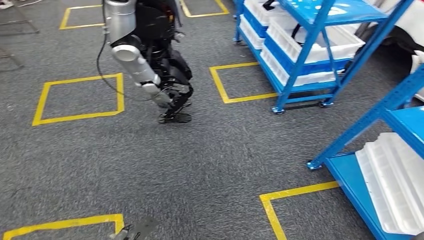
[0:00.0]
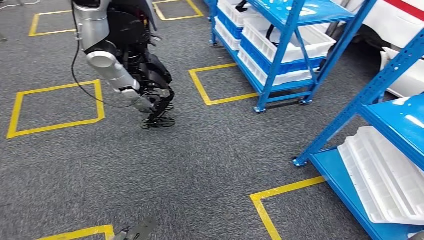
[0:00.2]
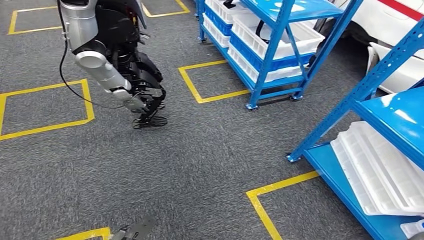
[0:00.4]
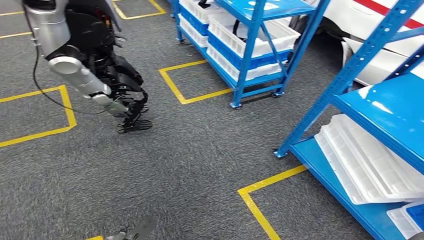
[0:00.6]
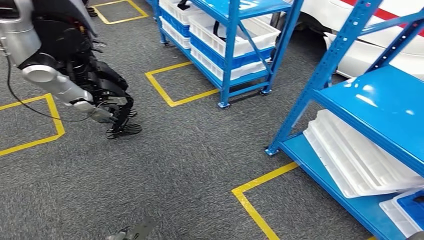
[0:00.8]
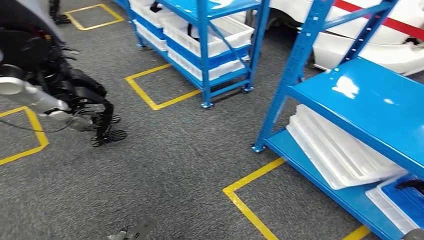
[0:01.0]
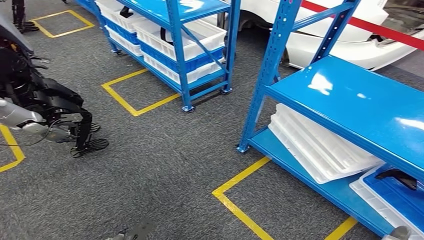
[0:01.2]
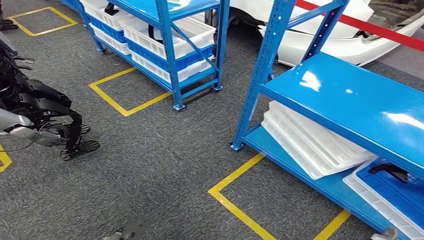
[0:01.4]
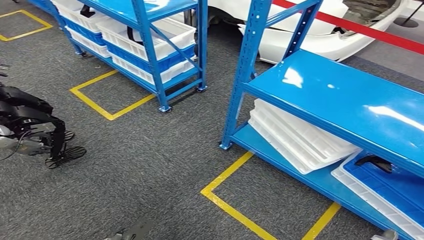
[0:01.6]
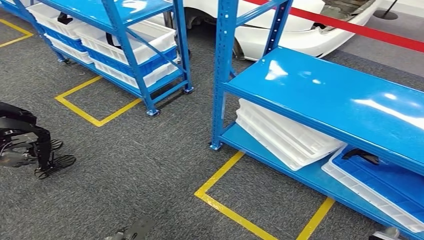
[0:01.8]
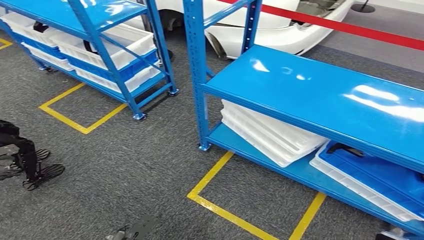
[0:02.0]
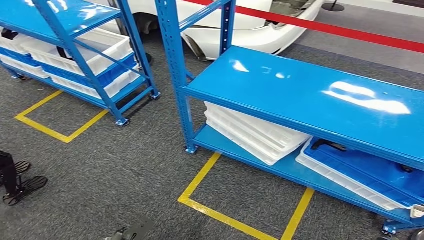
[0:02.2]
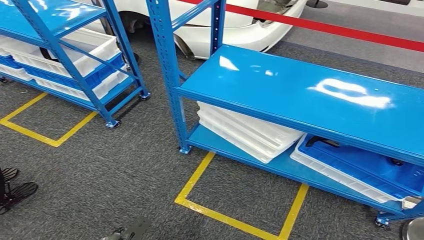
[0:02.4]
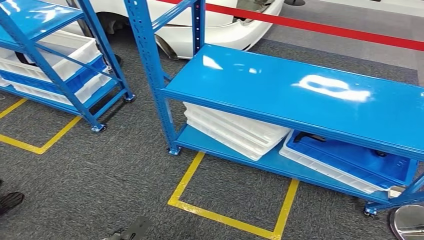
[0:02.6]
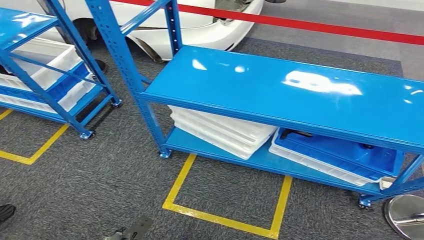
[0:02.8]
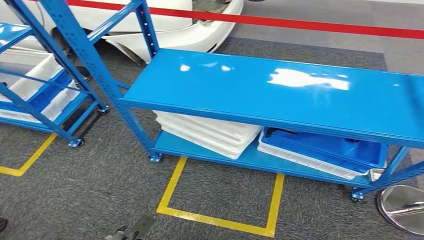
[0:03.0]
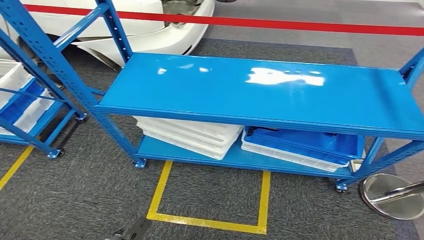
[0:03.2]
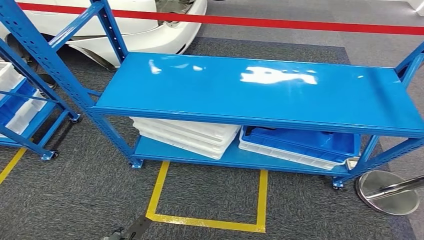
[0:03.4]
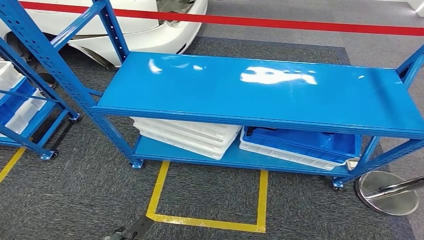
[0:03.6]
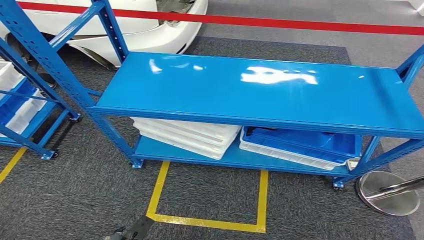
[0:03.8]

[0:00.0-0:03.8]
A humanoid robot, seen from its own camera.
Step, 0:00.0 to 0:03.6: Move to the initial position of the shelf.
